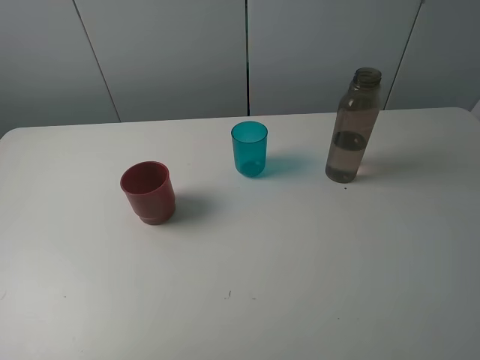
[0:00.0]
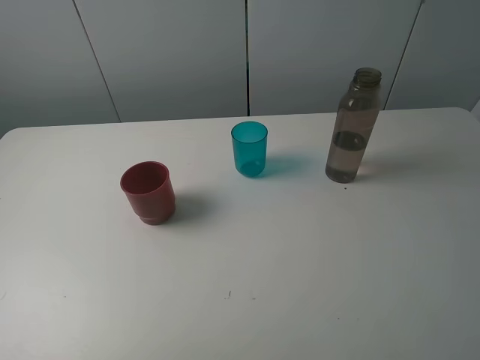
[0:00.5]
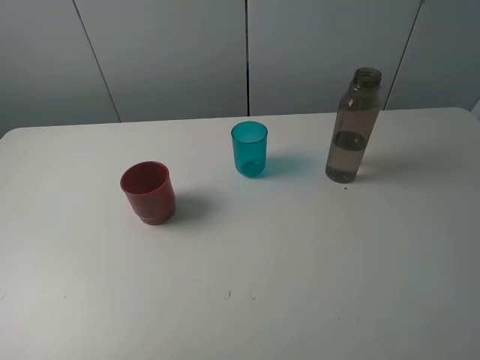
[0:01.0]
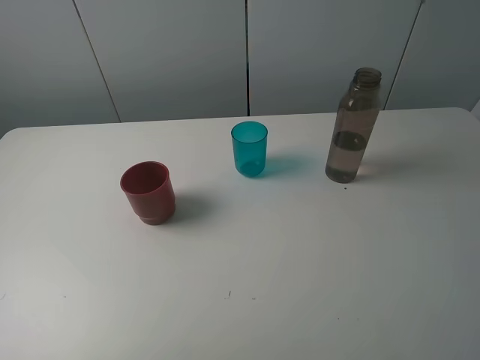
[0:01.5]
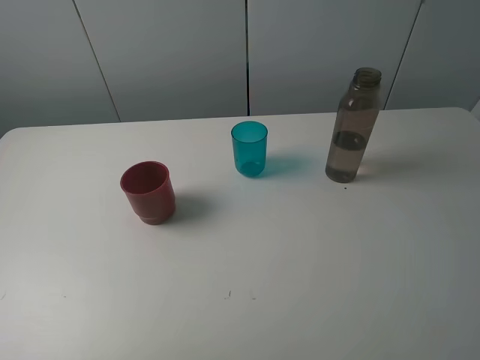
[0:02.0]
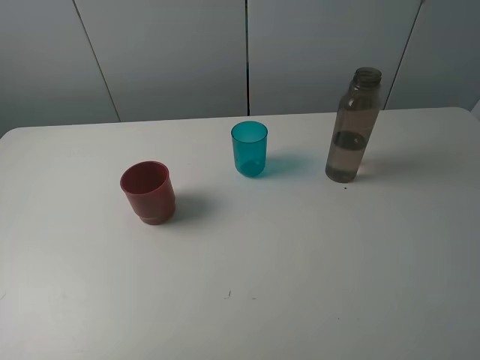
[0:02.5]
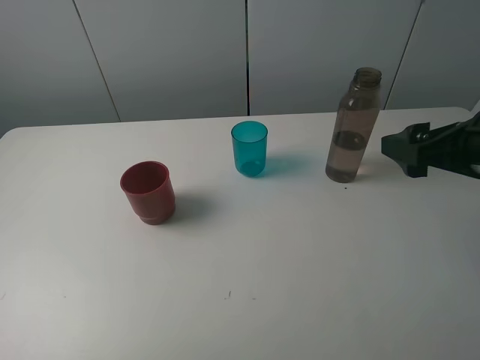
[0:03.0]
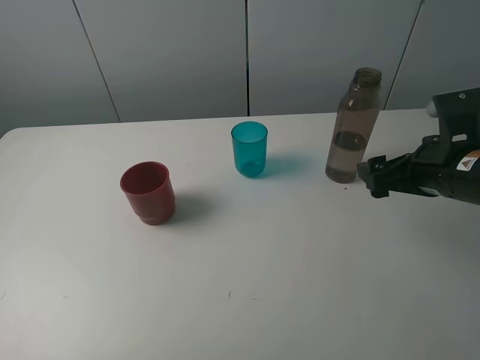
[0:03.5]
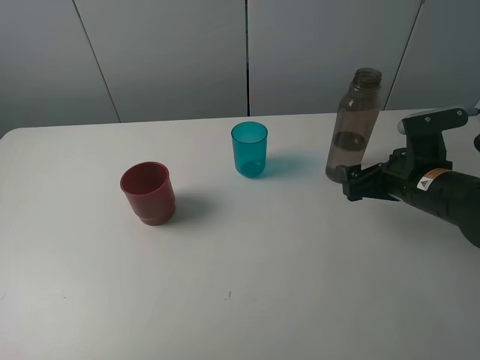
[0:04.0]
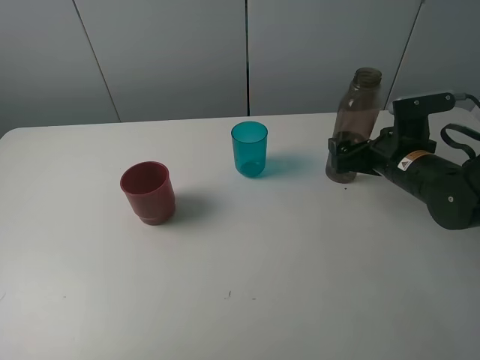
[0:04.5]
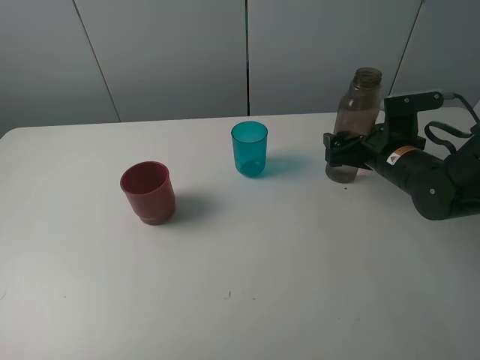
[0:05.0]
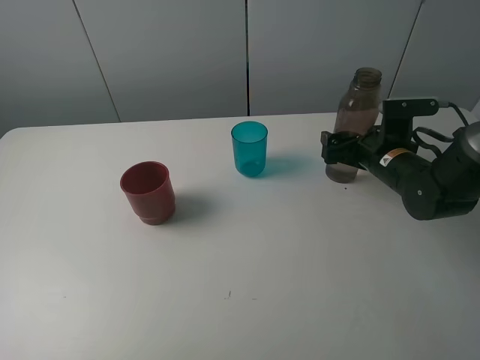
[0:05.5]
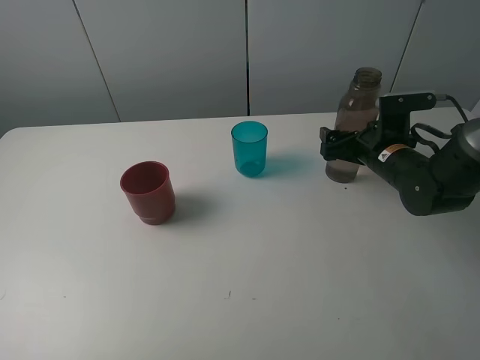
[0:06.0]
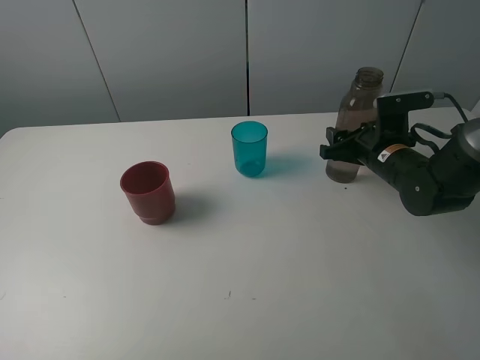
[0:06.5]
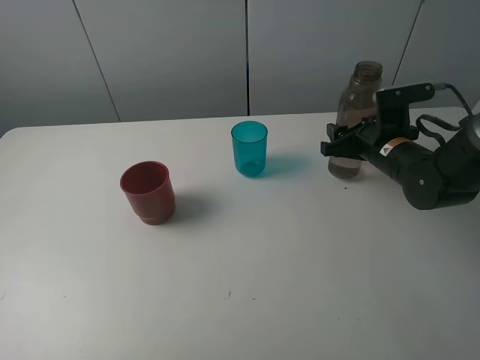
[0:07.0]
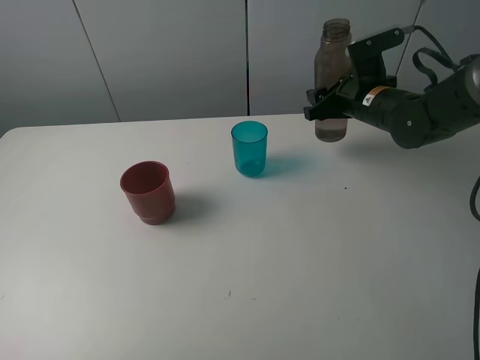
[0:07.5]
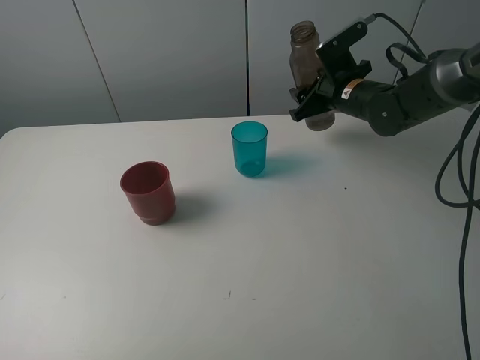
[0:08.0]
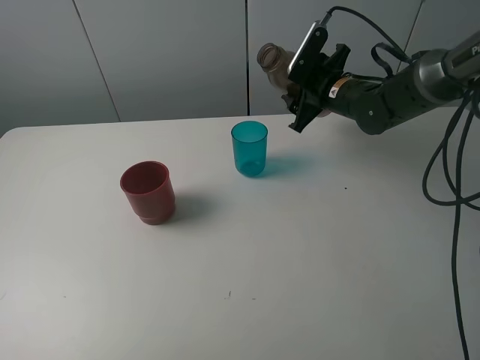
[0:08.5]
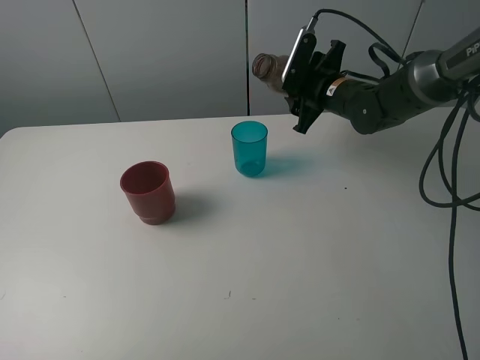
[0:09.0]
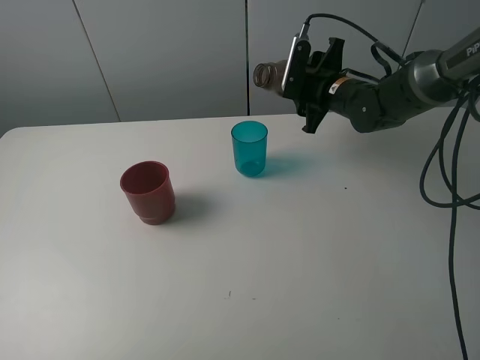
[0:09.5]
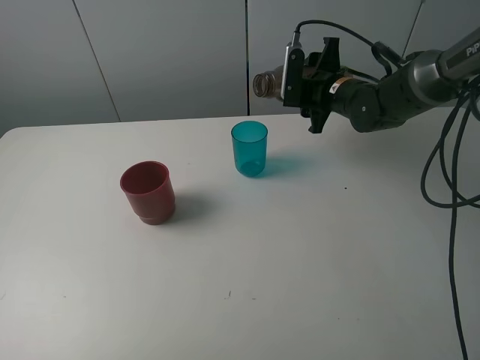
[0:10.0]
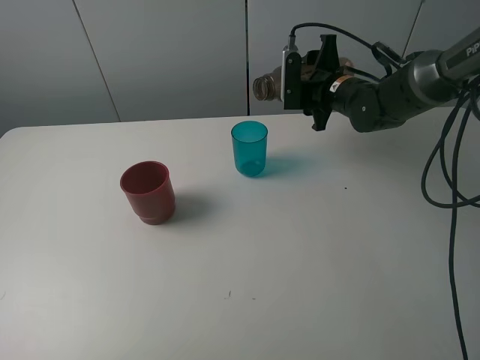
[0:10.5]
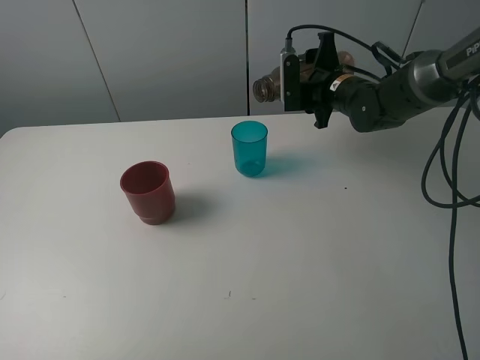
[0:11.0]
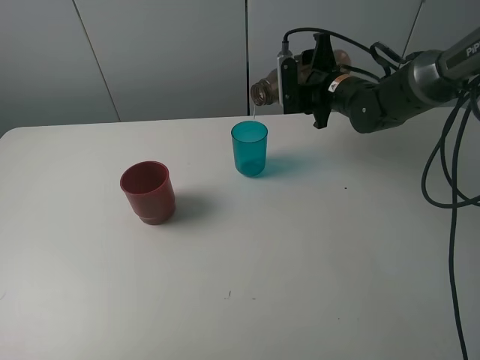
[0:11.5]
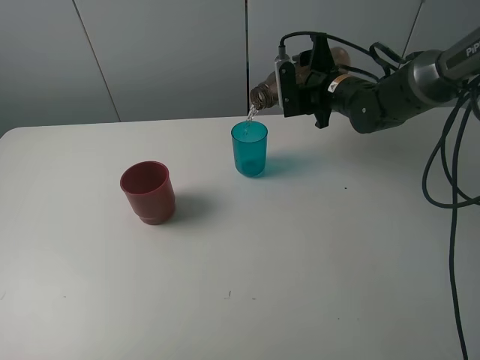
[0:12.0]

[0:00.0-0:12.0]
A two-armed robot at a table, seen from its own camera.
Task of the whole recording: pick up the bottle and pour water into the cup, then pick up the cup containing water and pour it into another cup.
Step, 0:00.0 to 0:06.5: Grasp the brown bottle with the right gripper.
0:00.0 to 0:02.0: Both grippers stay about where they are.
0:02.0 to 0:04.0: The right gripper moves forward and downward, about 30 cm.
0:04.0 to 0:06.0: The right gripper shifts about 10 cm forward.
0:06.0 to 0:08.0: The right gripper travels forward and upward by some 10 cm, and closes.
0:10.0 to 0:12.0: The grippers make only small movements.

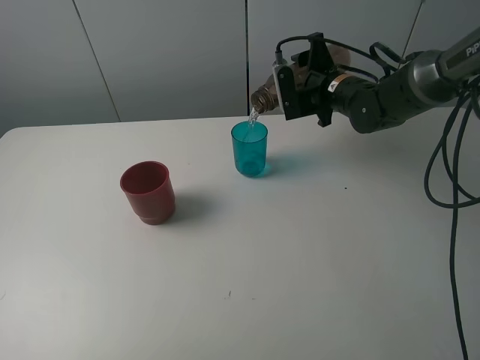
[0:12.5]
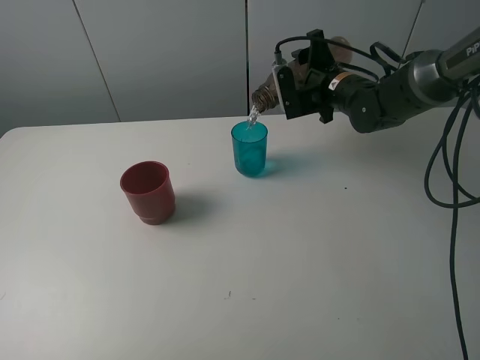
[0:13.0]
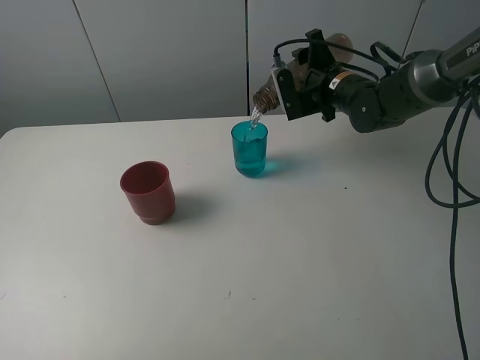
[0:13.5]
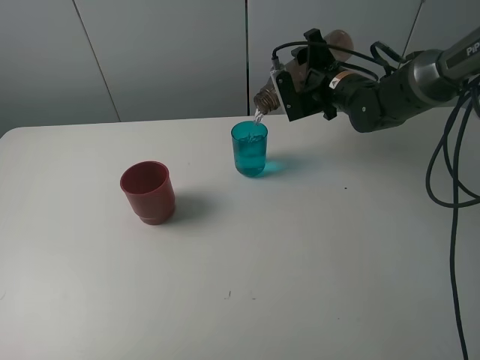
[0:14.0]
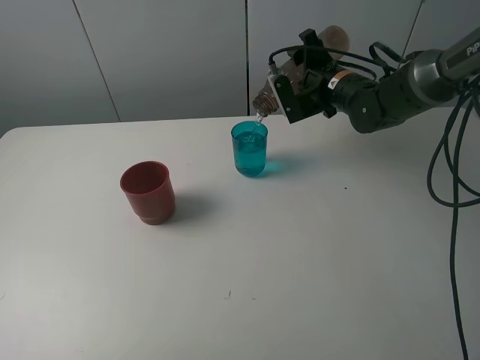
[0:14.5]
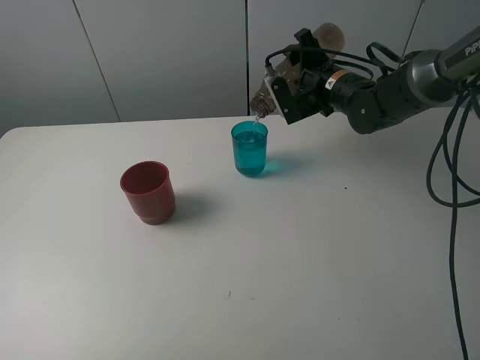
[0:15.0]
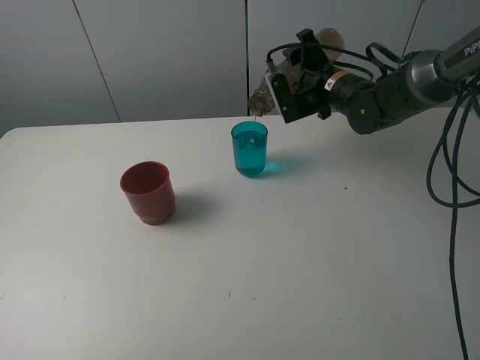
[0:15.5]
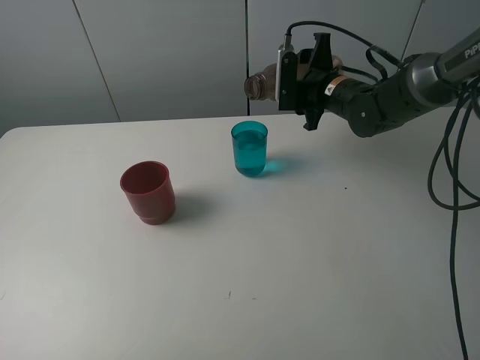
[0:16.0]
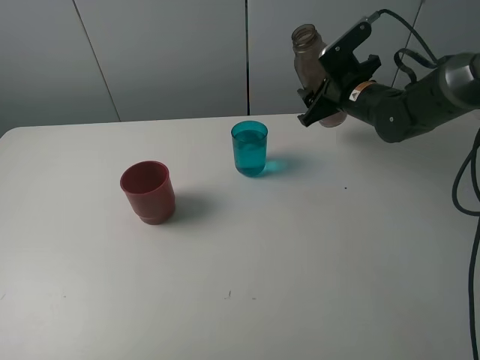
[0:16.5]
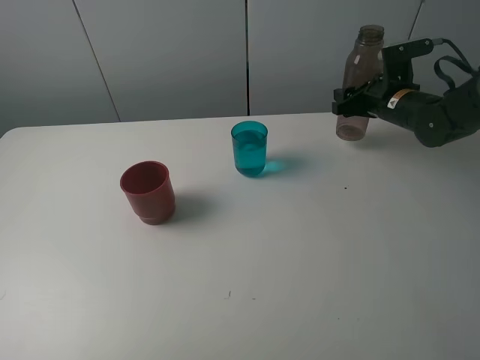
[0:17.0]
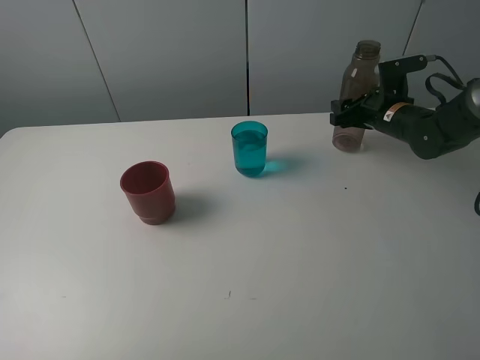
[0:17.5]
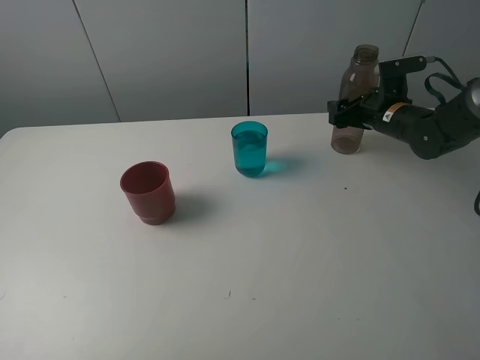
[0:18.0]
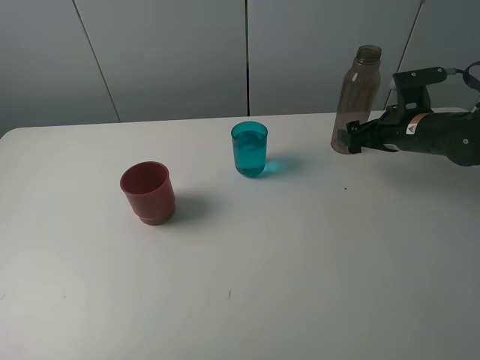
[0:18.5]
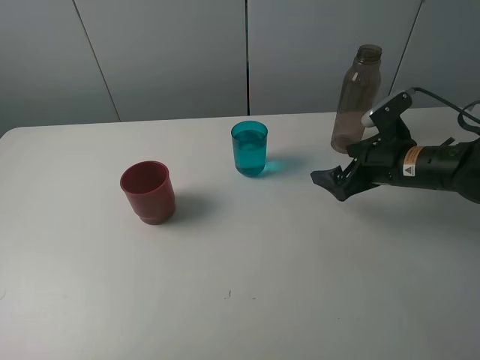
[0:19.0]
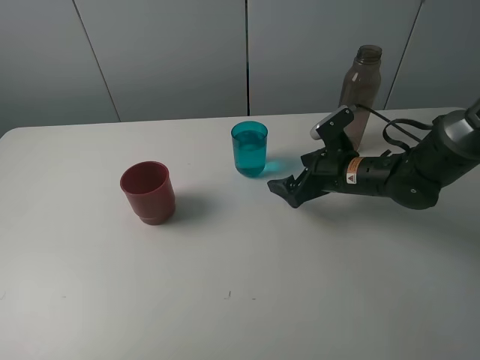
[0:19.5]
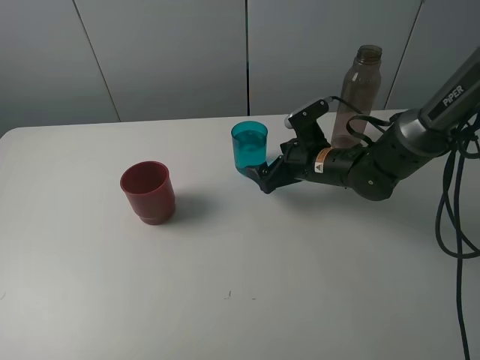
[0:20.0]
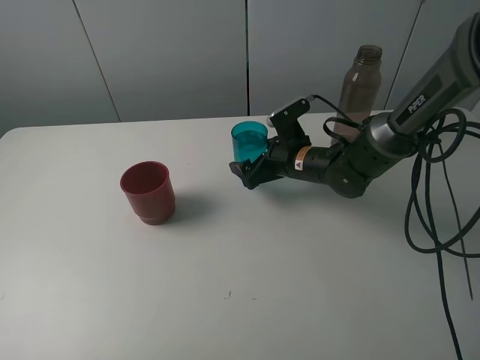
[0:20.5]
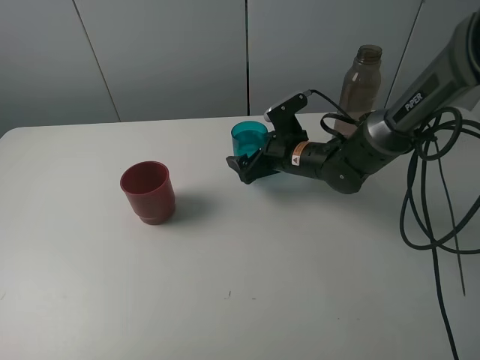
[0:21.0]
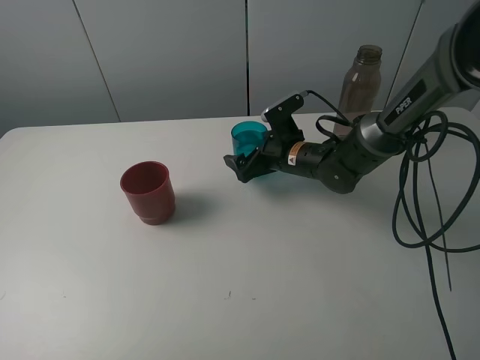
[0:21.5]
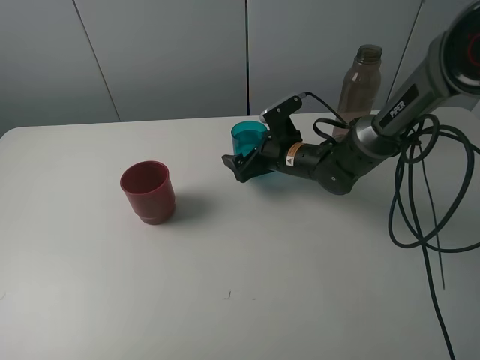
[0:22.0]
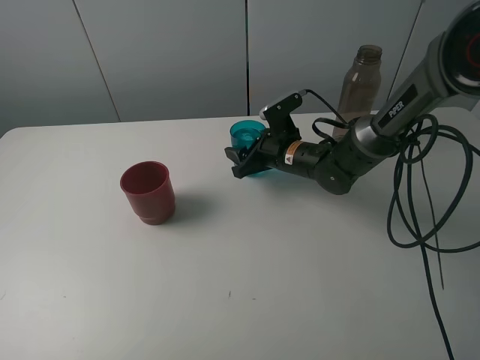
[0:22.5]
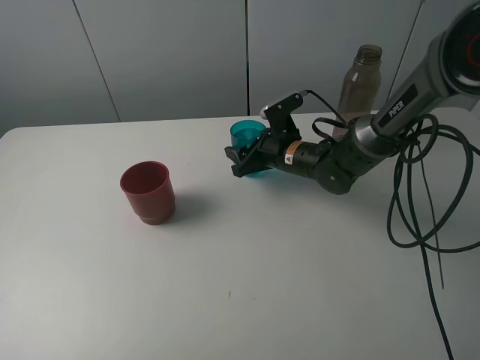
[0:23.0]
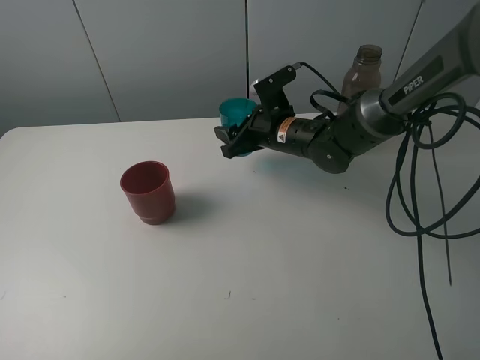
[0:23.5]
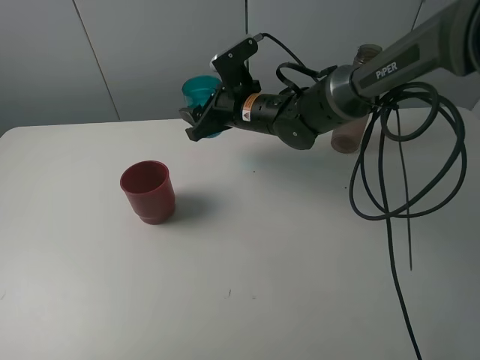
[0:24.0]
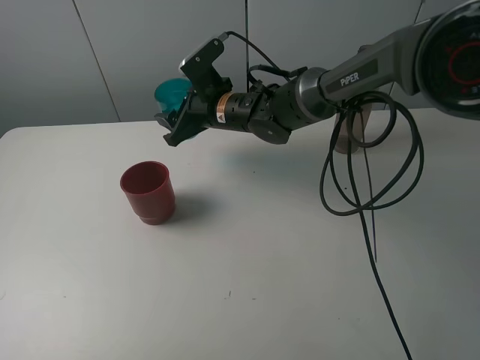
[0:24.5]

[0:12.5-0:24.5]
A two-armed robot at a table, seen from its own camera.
Task of the whole recording: pick up the bottle and pour water into the cup, then pick up the cup containing water and pour it into another cup.
Step, 0:12.5 to 0:15.5: Pour water from brown bottle to blue cup with the right gripper.
Step, 0:16.0 to 0:18.0: Place the brown bottle with the right gripper.
Step, 0:18.5 to 0:22.5: Grasp the blue cup with the right gripper.
0:12.5 to 0:14.5: The grippers move only a little.
0:16.5 to 0:18.5: The right gripper is displaced to the right and backward by about 10 cm, and opens up.
0:18.5 to 0:20.5: The right gripper shifts roughly 20 cm to the left and downward.
0:20.5 to 0:22.5: The right gripper closes.
0:22.5 to 0:24.5: The right gripper travels to the left and upward by approximately 15 cm.

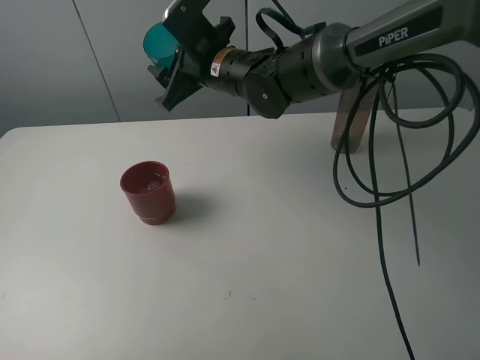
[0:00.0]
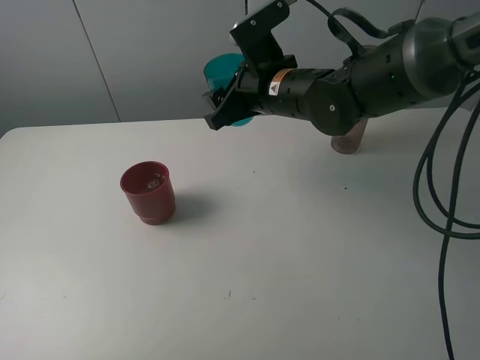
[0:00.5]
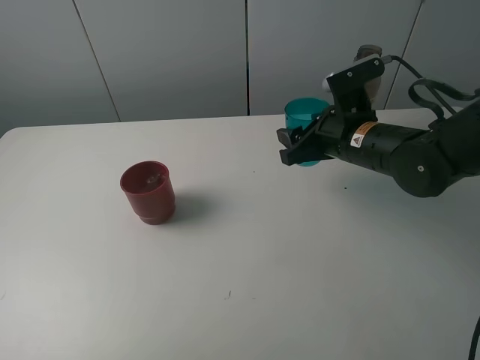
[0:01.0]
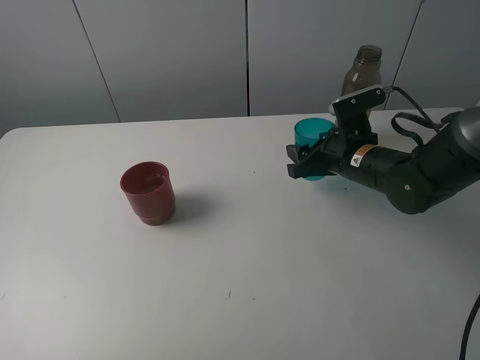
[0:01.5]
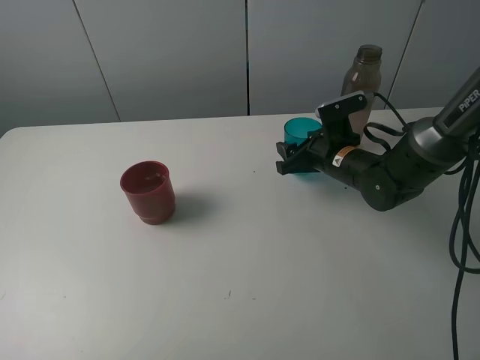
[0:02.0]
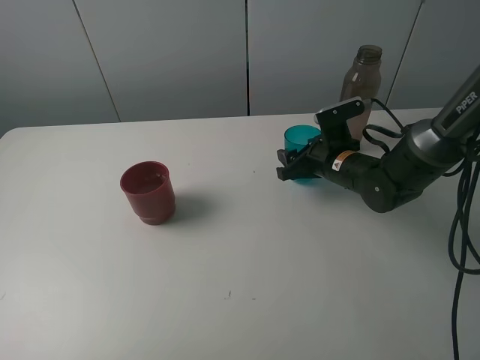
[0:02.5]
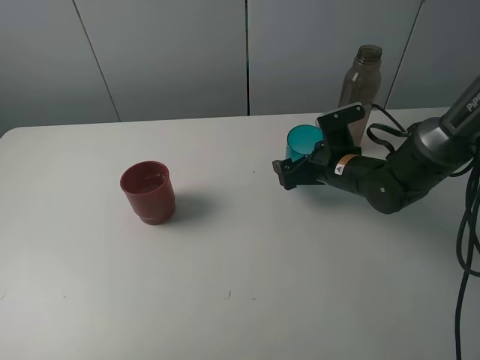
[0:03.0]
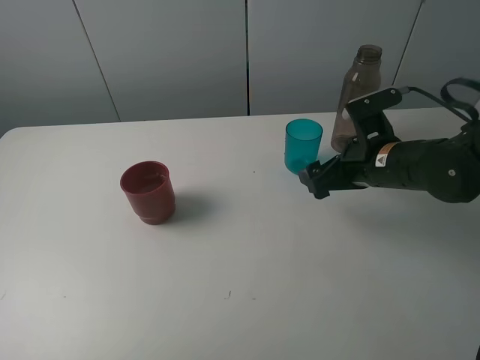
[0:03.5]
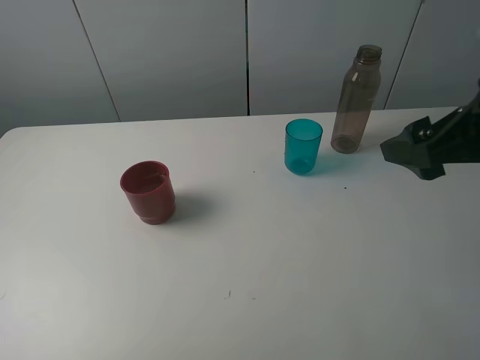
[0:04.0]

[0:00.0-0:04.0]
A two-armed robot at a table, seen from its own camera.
Task of the whole recording: pick up the bottle and pour water into the cup, then pick up the cup containing water and pour it into another cup.
Step, 0:00.0 to 0:03.0: Place the blue cup with the right gripper.
0:00.0 to 0:02.0: The right gripper heads to the right and downward, covering about 20 cm.
0:02.0 to 0:04.0: The right gripper shifts some 25 cm upward and backward, and opens up.
